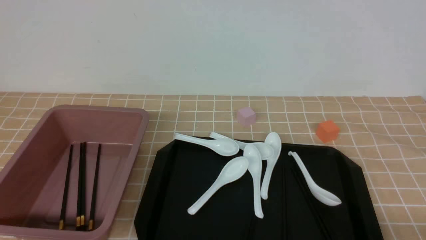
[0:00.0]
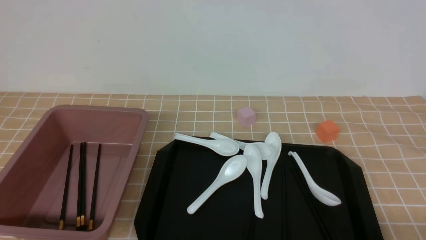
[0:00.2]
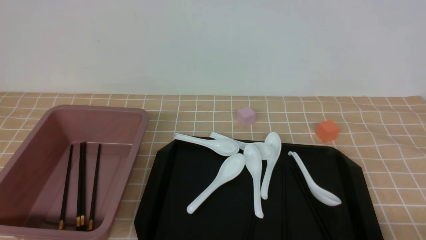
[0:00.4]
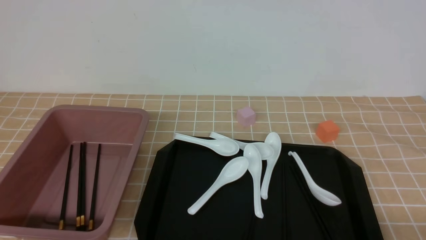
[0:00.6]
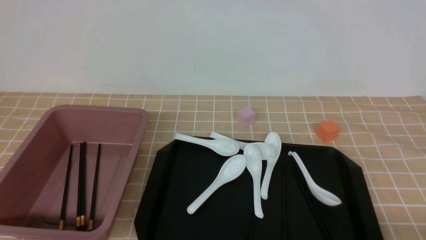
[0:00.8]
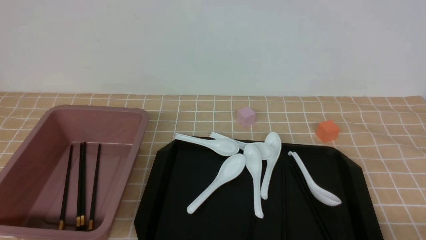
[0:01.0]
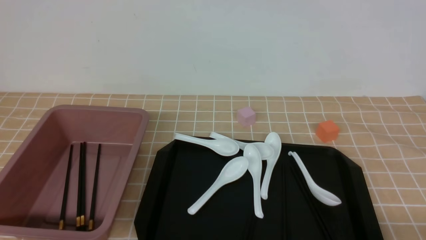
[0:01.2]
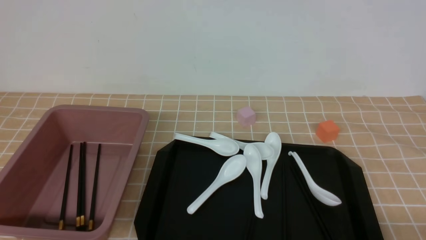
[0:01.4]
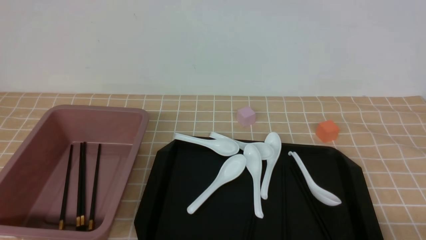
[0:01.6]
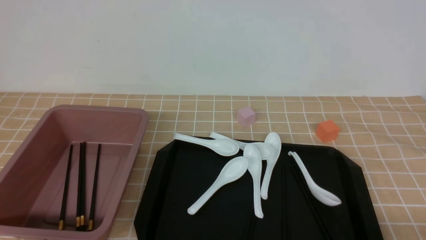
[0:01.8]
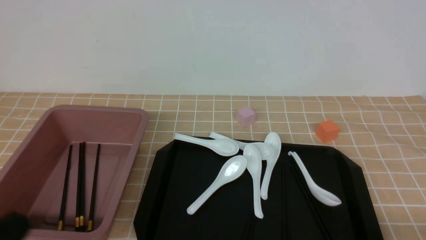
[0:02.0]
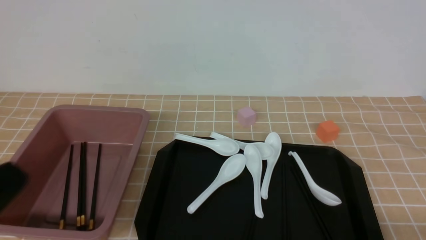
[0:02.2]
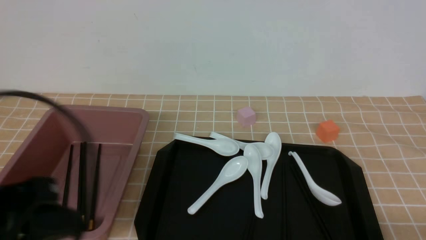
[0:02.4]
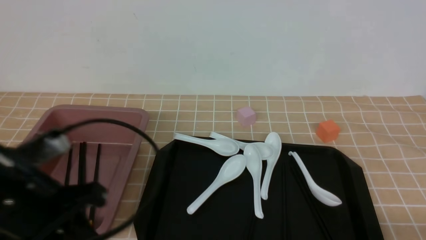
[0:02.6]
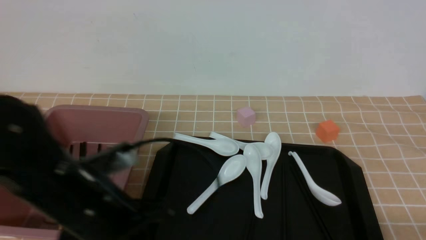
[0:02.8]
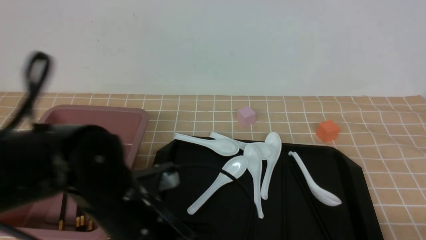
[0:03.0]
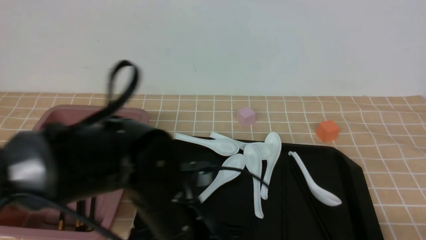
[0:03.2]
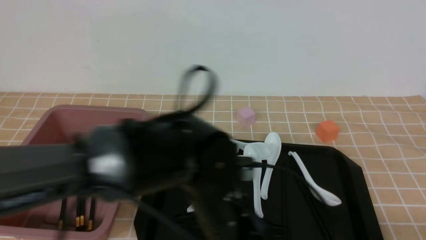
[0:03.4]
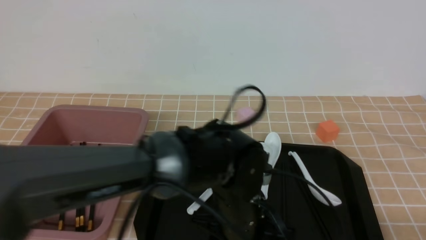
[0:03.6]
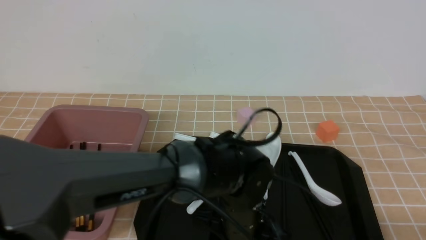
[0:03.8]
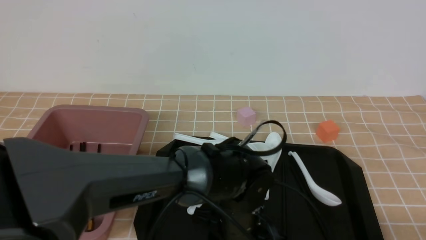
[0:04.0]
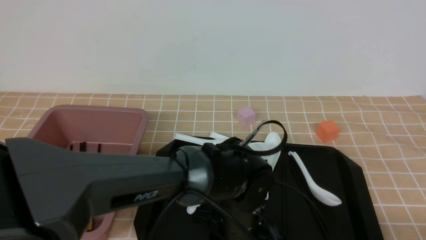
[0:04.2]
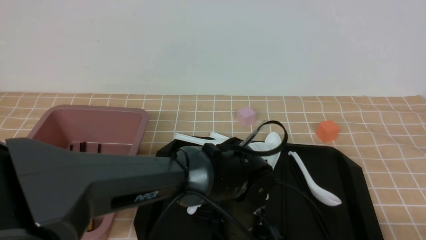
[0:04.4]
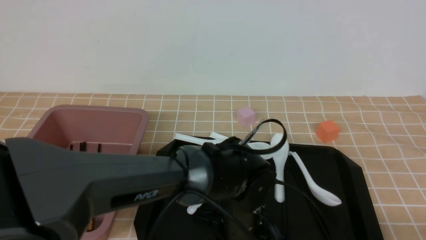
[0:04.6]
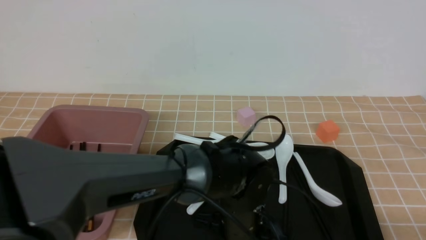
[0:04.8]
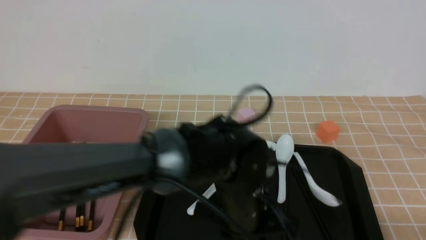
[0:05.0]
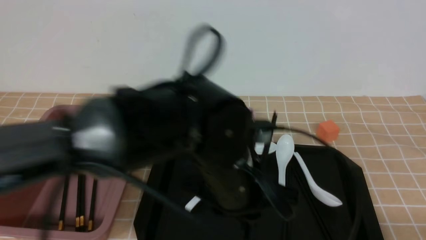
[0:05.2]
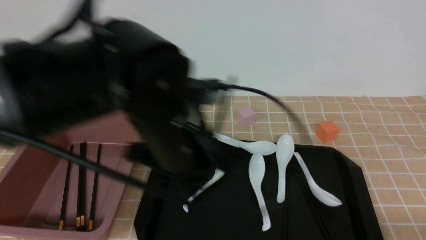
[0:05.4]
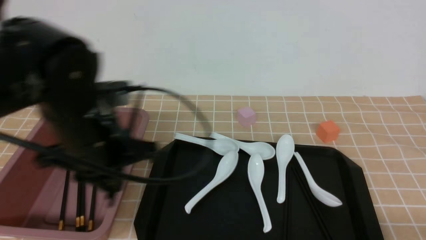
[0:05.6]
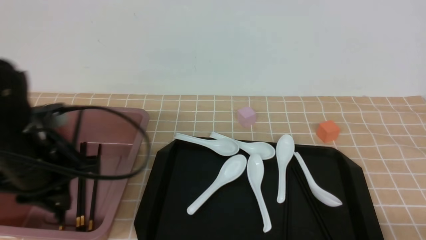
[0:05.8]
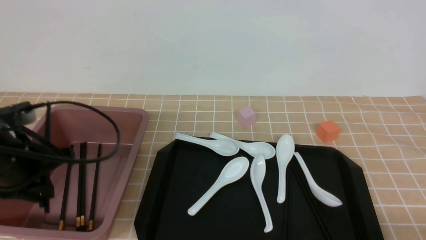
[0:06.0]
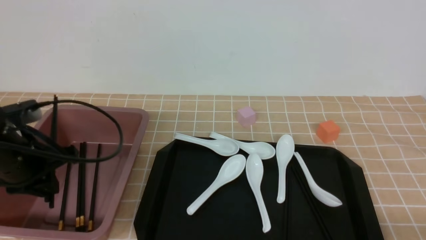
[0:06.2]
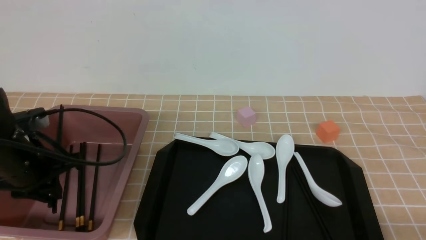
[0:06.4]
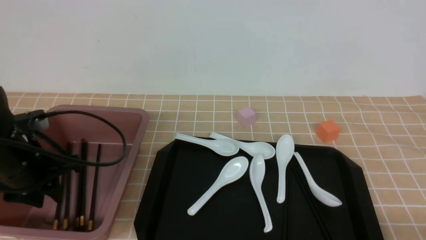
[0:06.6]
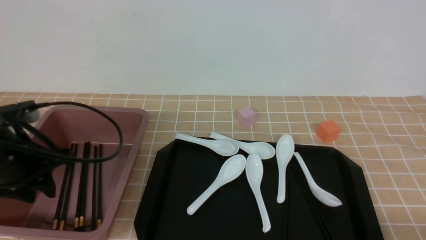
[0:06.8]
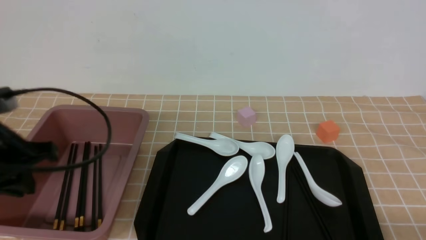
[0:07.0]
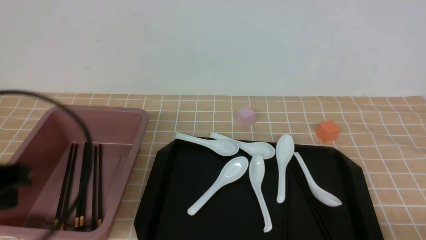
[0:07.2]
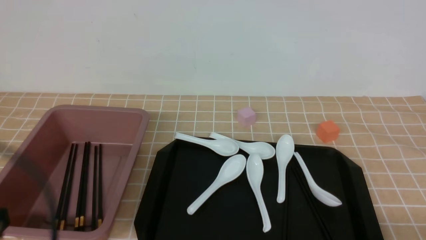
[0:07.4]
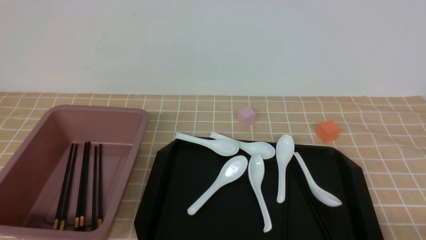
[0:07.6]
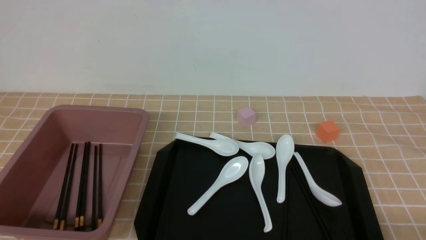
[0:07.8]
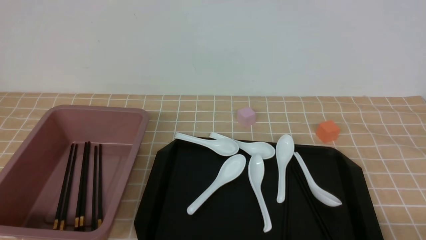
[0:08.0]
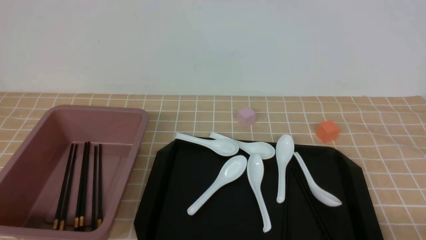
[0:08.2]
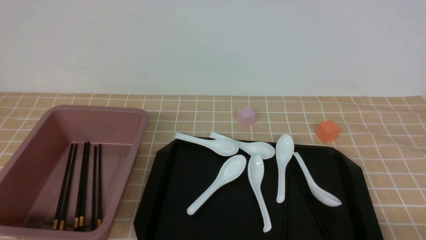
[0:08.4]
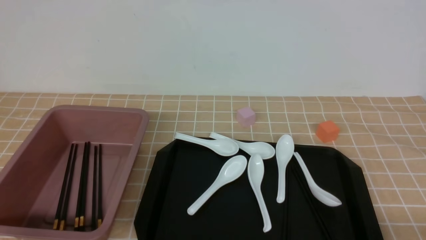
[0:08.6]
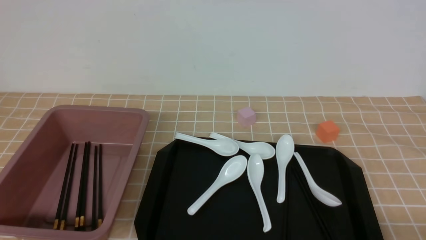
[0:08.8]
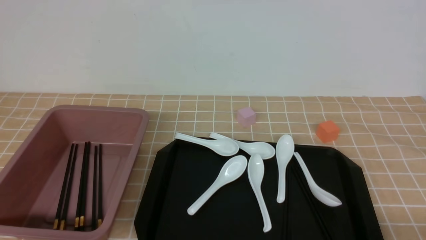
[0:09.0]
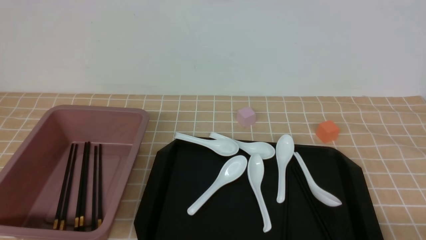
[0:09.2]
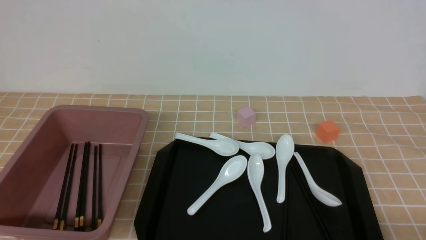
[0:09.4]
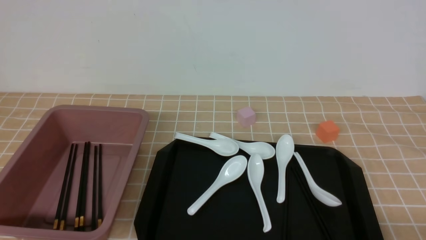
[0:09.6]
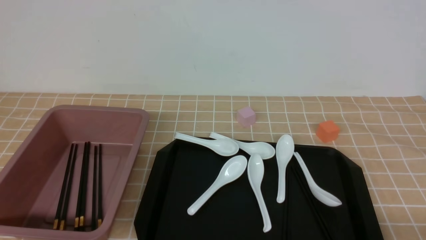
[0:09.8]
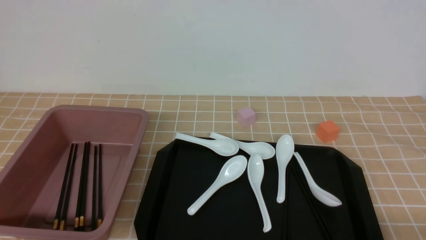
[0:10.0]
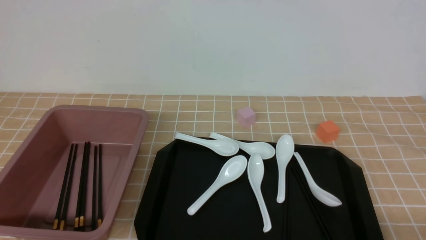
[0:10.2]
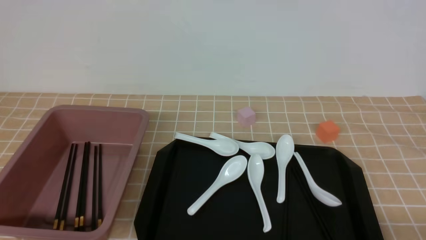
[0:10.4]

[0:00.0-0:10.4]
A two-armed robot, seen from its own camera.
Step, 0:00.0 to 0:05.0: use the left arm to grab a pair of chopsticks.
Step, 0:05.2 to 0:07.0: use the left arm to put the chopsticks into the lunch box.
0:01.4 to 0:03.0: The left gripper is displaced to the right and forward by some 20 cm.
0:03.0 to 0:04.4: The left gripper heads to the right, downward and forward, covering approximately 15 cm, and opens up.
0:04.4 to 0:06.0: The left gripper heads to the left, covering some 30 cm.
0:06.0 to 0:07.4: The left gripper shifts about 20 cm backward.
0:07.4 to 0:09.0: The left gripper goes some 15 cm downward.
0:09.0 to 0:10.4: Both grippers stay put.
